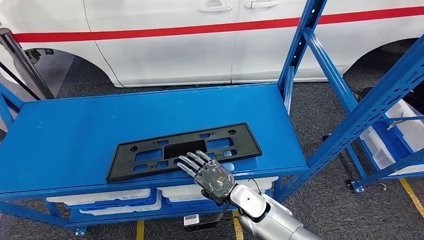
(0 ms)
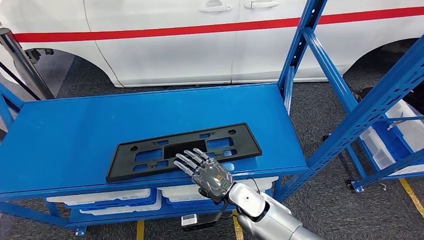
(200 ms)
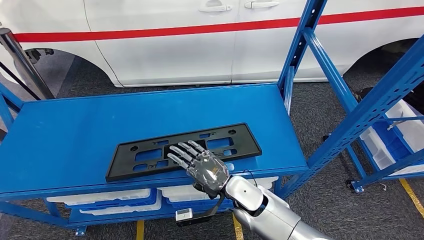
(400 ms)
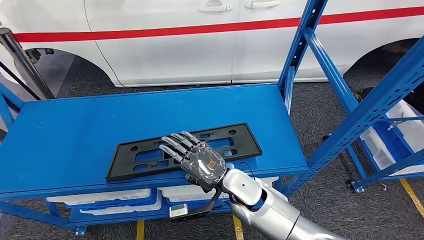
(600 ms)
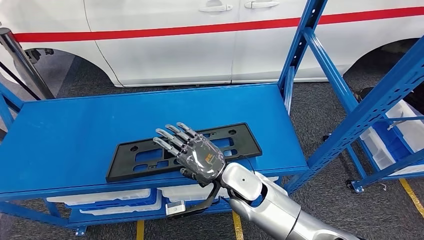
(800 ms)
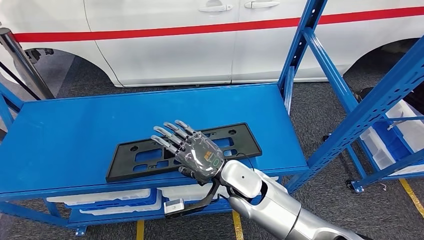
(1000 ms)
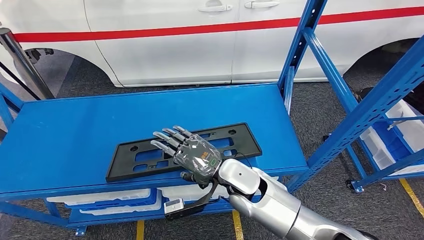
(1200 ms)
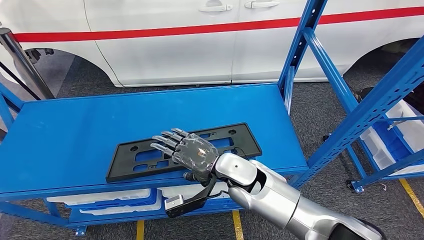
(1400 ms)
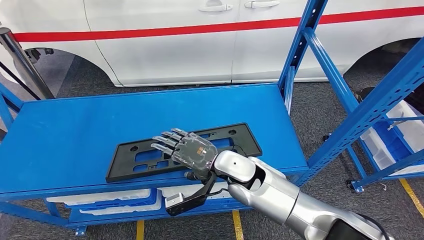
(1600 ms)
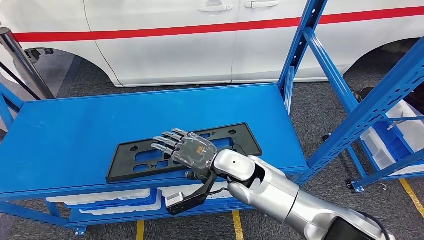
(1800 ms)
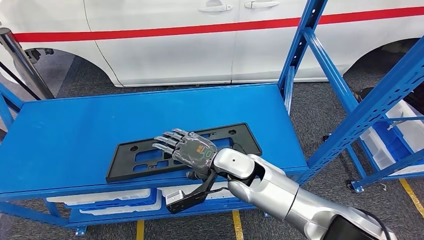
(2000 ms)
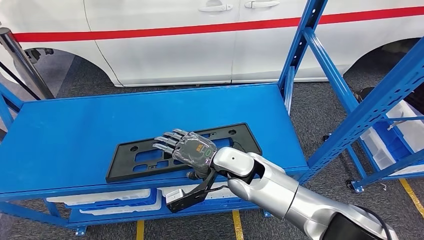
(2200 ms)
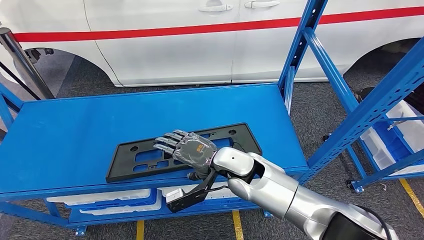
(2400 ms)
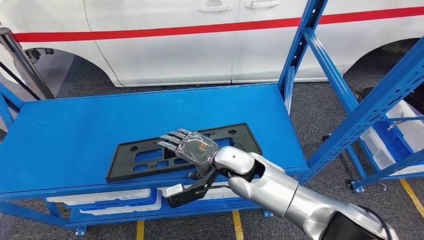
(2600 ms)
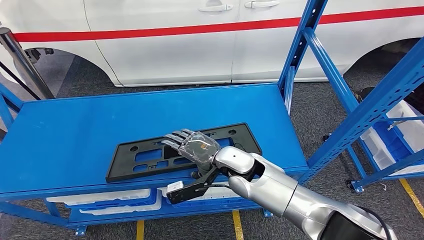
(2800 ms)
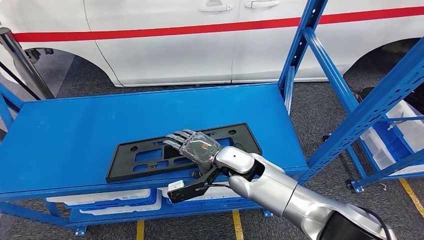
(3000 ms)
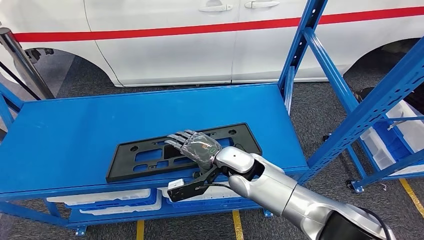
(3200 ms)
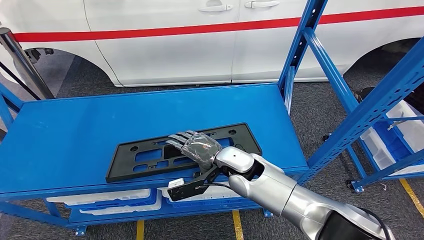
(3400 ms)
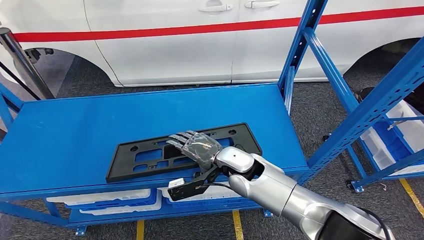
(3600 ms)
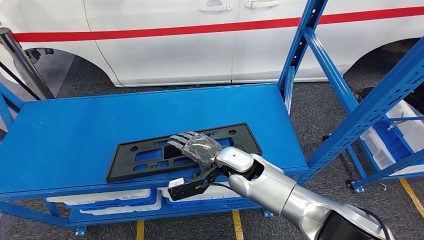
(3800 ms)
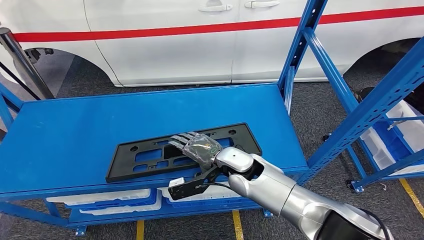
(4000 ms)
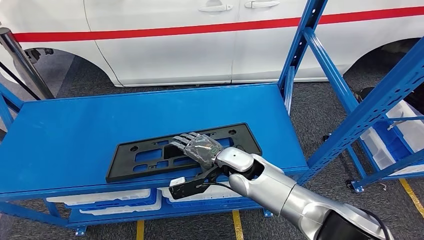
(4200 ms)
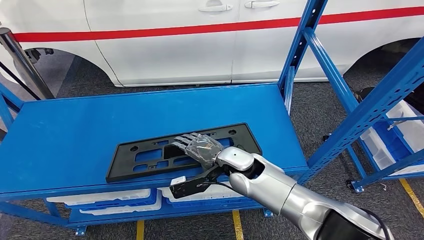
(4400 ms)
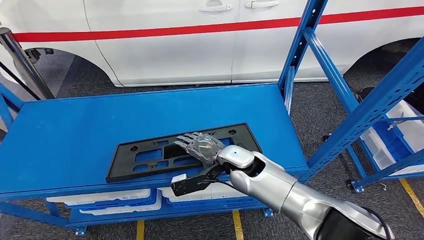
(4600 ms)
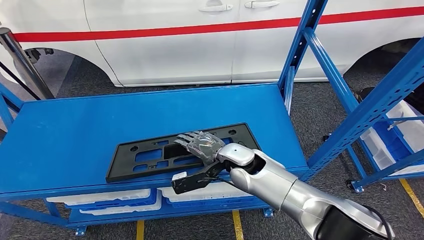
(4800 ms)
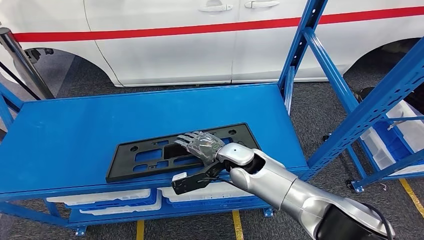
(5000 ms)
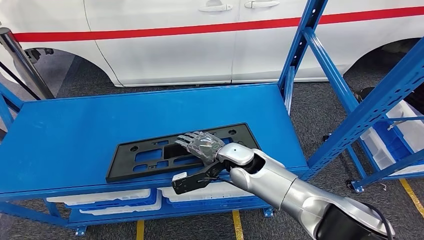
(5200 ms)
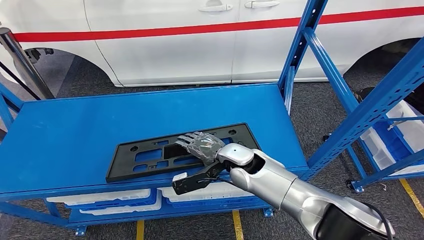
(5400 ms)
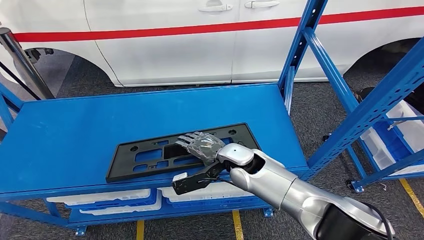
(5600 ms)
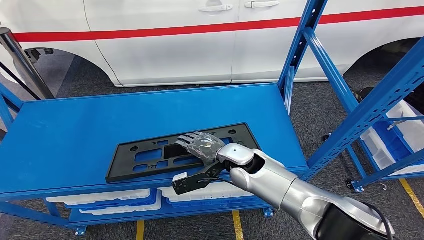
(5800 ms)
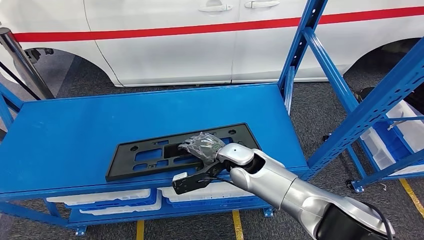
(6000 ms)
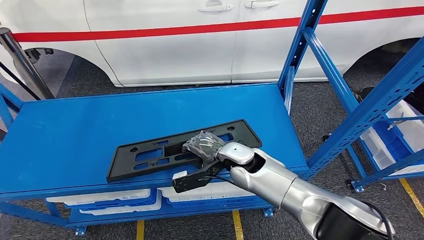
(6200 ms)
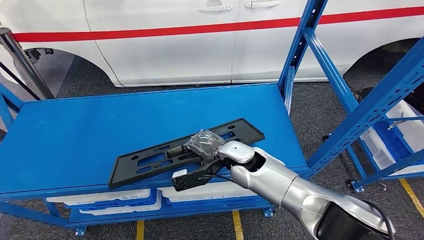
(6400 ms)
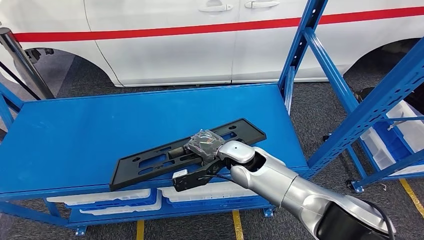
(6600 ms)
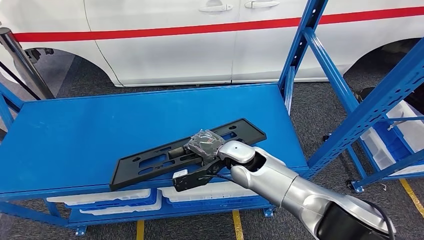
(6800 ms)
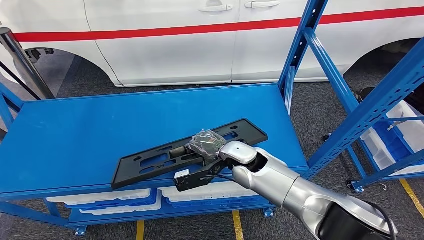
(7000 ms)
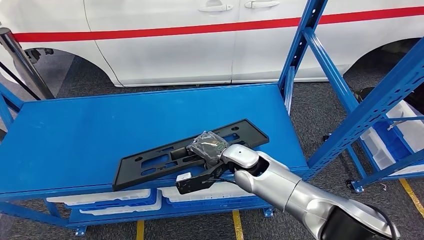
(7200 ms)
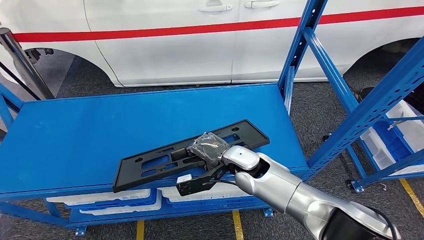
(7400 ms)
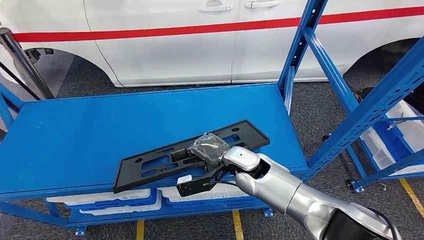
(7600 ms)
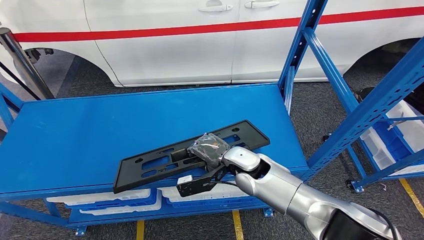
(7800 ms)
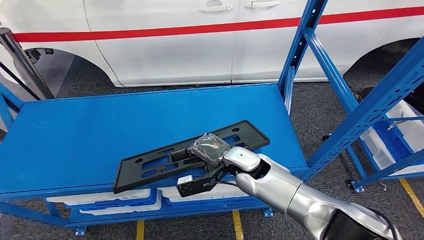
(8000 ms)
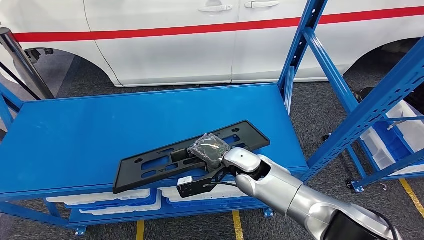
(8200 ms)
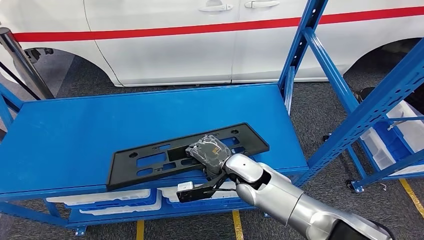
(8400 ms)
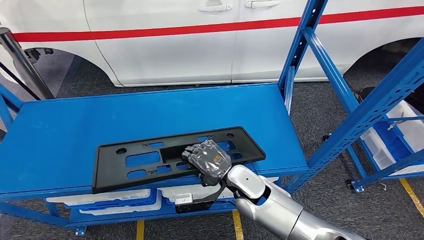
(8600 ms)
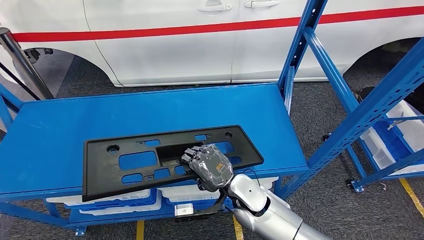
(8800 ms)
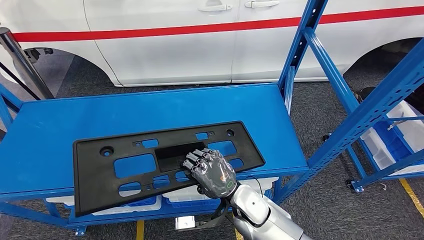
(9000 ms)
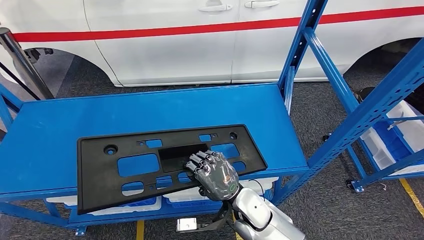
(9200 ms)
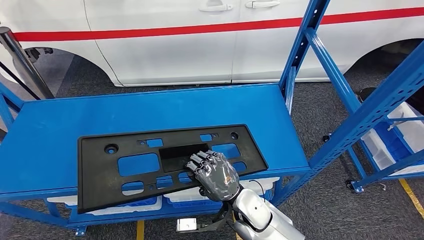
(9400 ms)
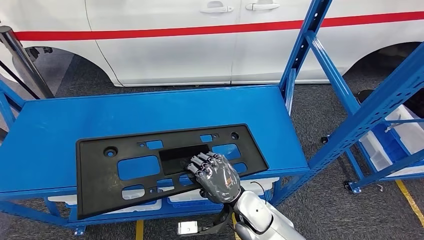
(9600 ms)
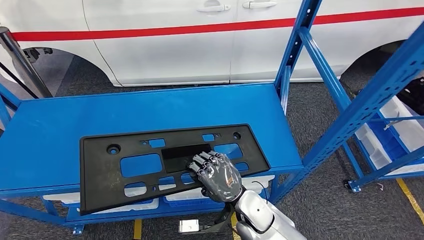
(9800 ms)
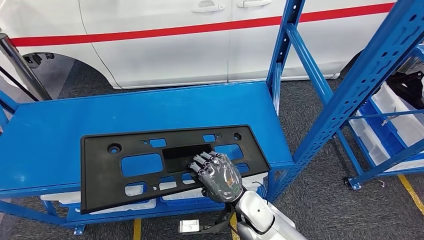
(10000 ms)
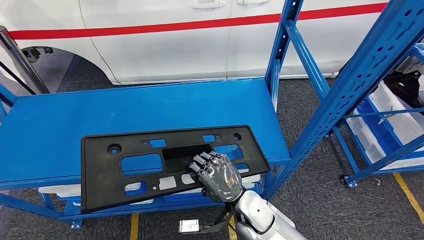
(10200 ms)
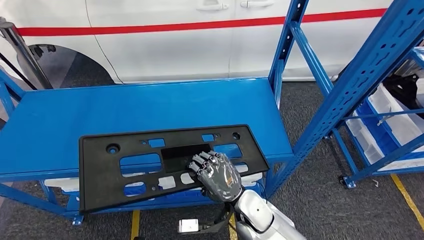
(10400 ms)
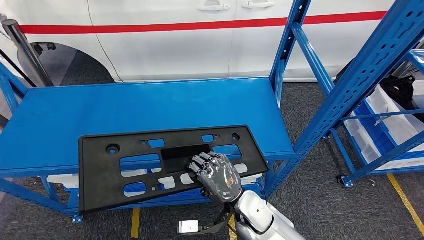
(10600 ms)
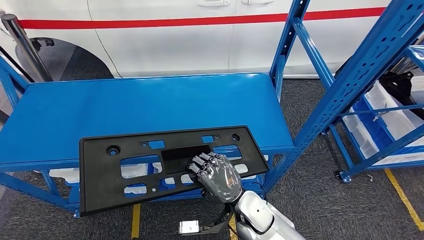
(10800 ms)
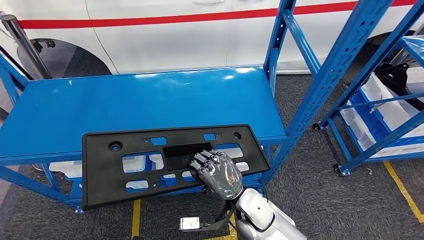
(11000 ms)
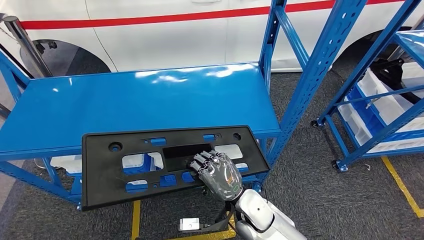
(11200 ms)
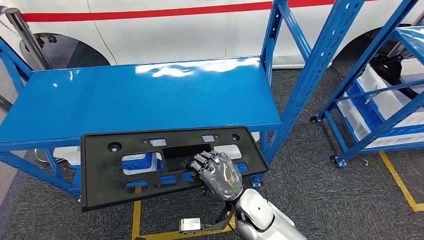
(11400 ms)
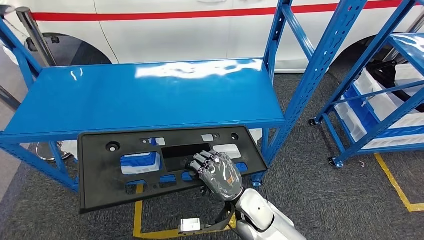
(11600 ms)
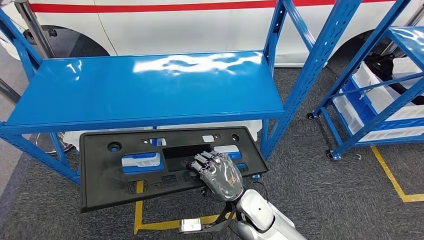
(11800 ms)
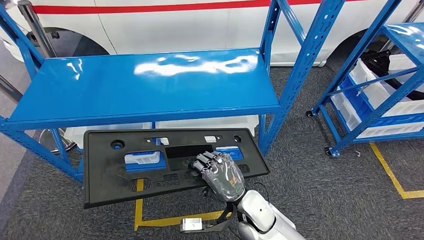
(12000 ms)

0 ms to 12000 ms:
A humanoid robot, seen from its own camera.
Step, 0 ms to 9000 ms: Pick up the large material from the shelf.
0 ms to 1600 ms: The right hand shifts approximately 10 cm upward.
1600 ms to 3000 ms: There are only small adjustments of the hands.
3000 ms to 4400 ms: The hands make only small movements.
4400 ms to 6000 ms: Both hands stay about where they are.
6000 ms to 7600 ms: The hands stay close to where they were, moving slightly.
7600 ms to 9000 ms: The right hand shifts roughly 10 cm backward.

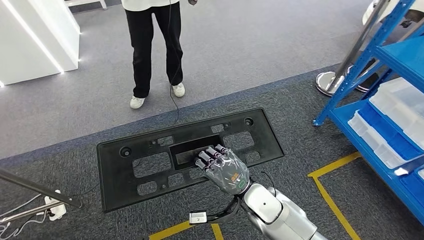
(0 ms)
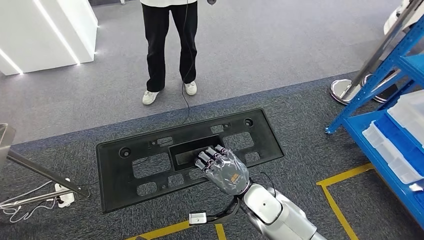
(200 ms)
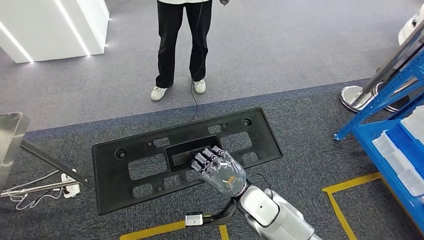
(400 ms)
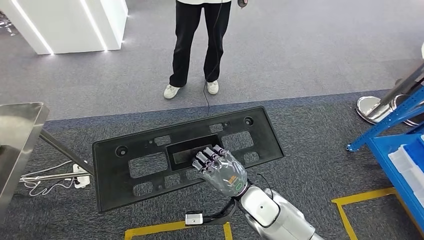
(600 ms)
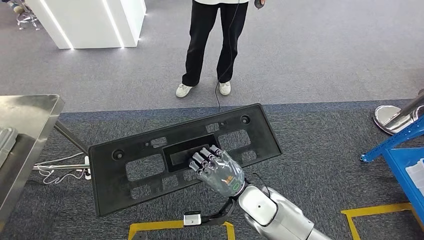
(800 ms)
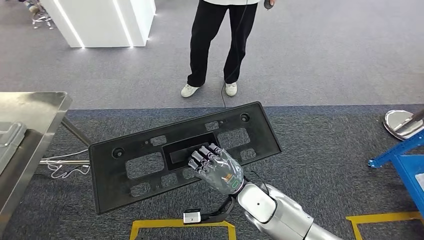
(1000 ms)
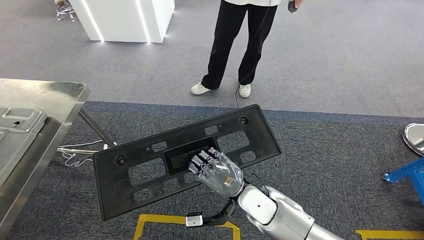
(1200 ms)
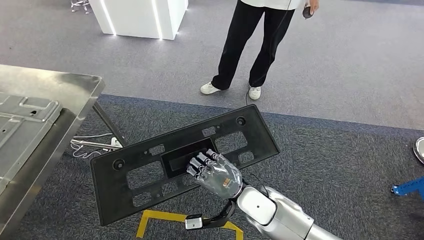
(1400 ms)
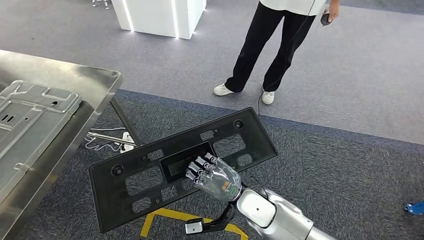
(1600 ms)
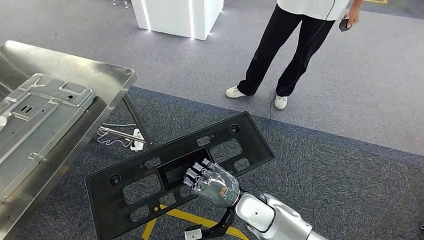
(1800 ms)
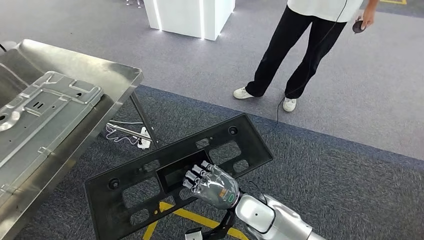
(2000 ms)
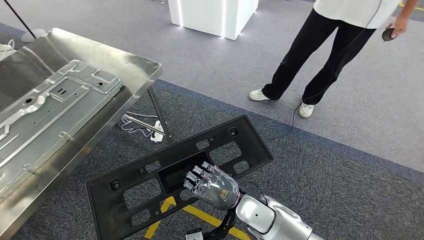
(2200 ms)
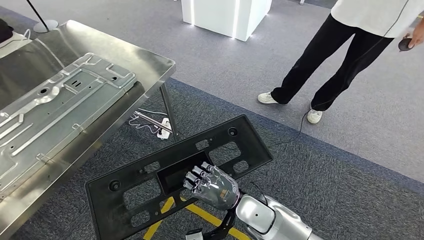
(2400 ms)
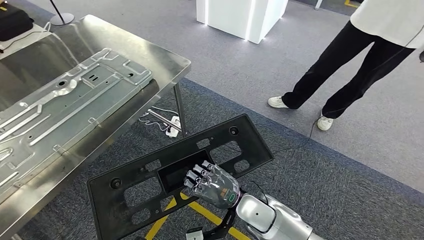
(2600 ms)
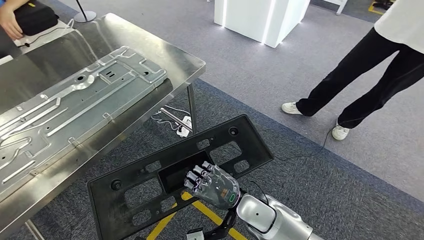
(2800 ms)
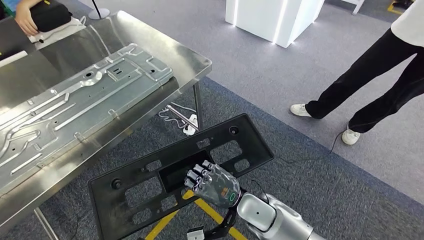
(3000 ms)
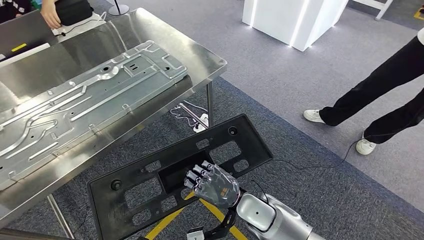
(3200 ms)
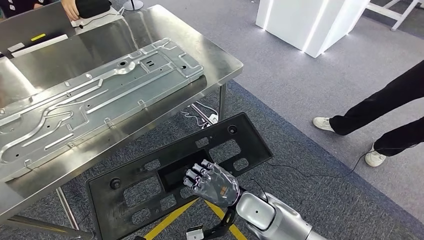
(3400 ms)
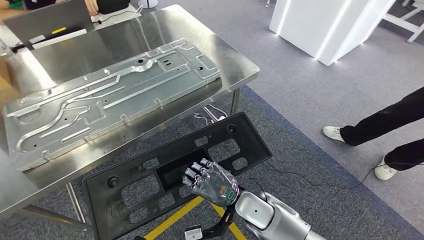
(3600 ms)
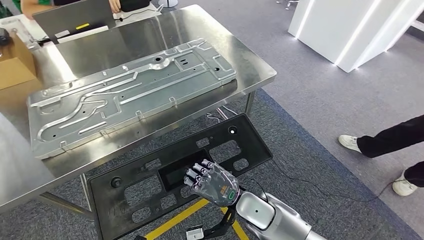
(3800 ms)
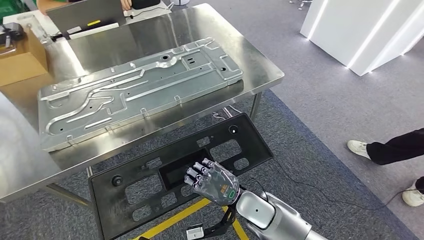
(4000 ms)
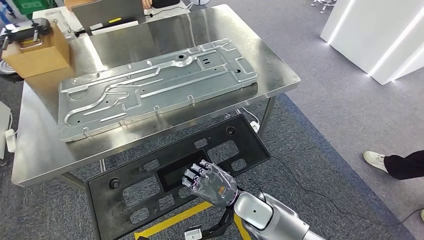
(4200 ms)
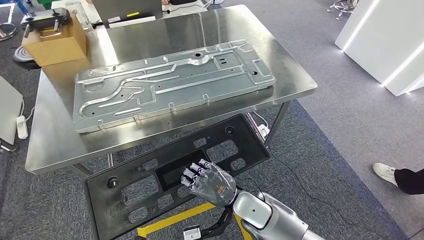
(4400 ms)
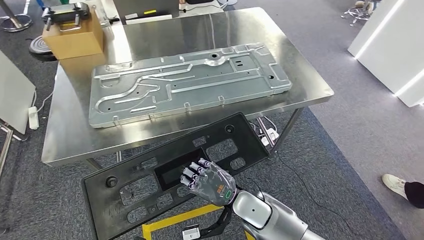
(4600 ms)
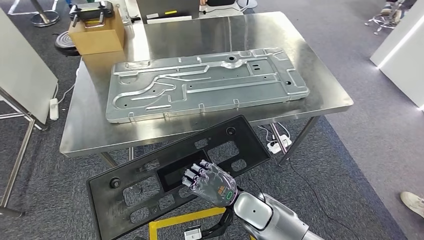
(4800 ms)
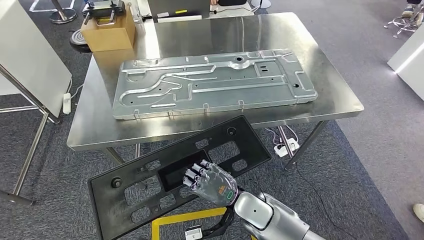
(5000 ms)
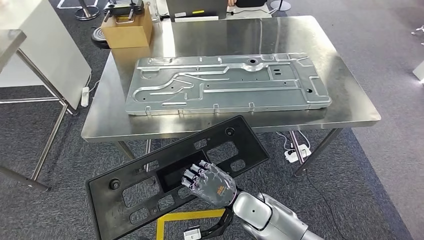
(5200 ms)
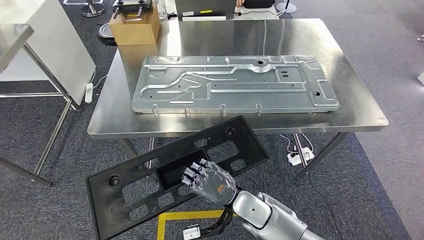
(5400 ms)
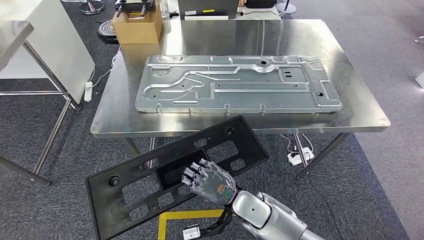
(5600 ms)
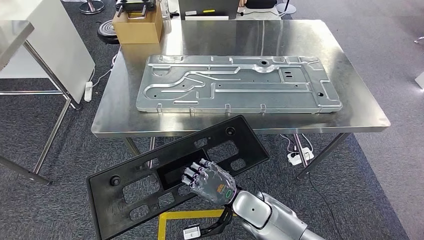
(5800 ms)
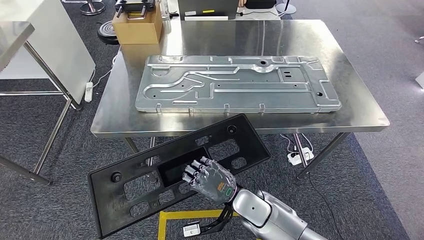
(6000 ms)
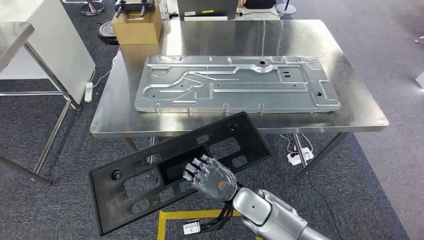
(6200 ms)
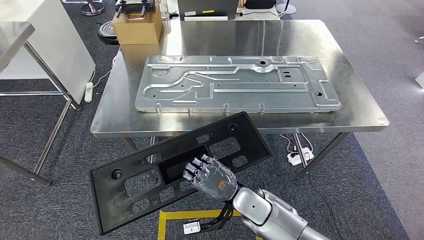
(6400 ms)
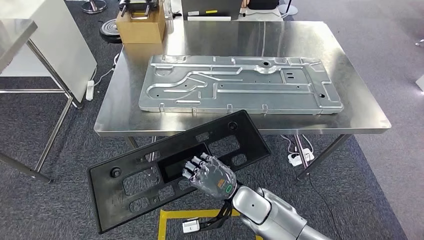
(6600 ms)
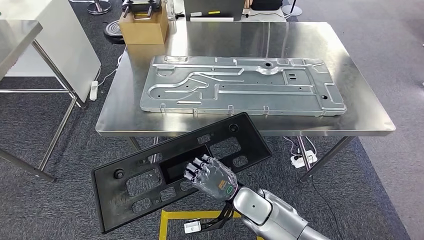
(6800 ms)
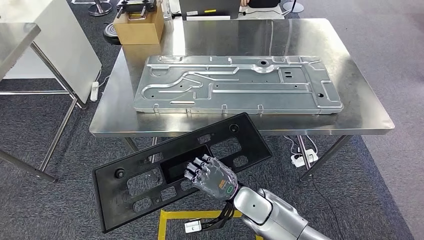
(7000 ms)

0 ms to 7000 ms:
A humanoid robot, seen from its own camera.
Step, 0 ms to 4200 ms: Move the large material to the workbench.
